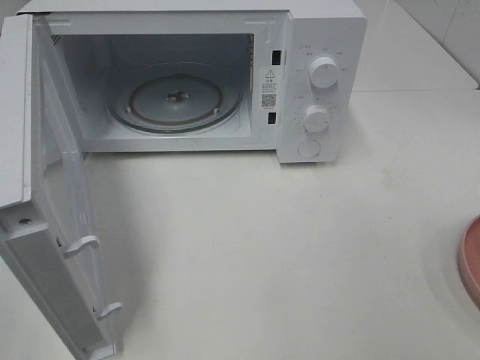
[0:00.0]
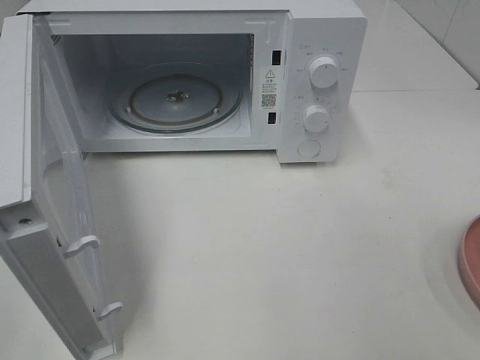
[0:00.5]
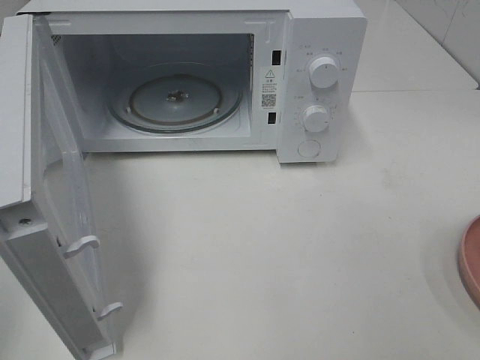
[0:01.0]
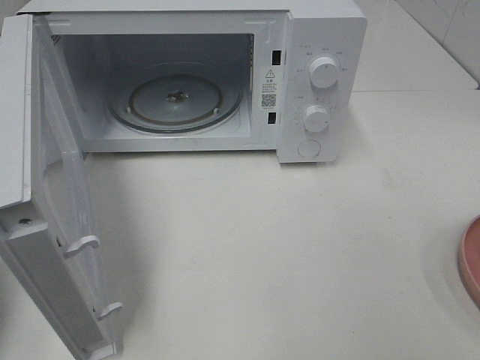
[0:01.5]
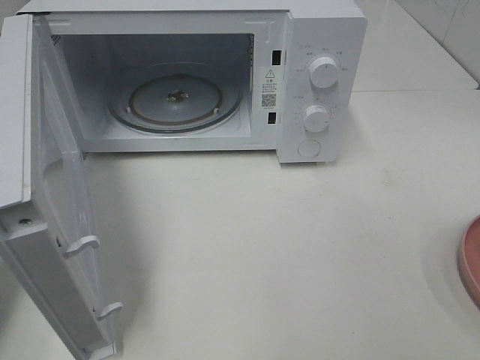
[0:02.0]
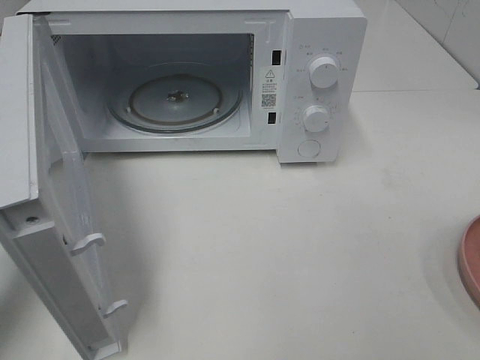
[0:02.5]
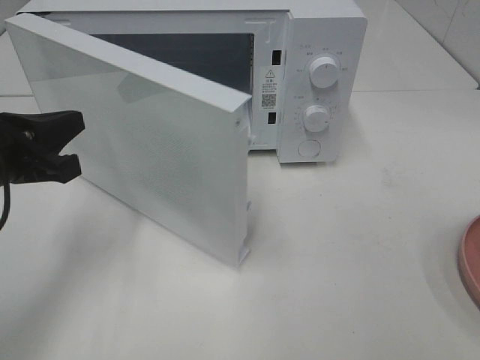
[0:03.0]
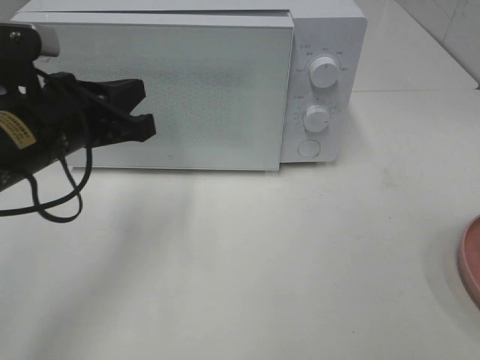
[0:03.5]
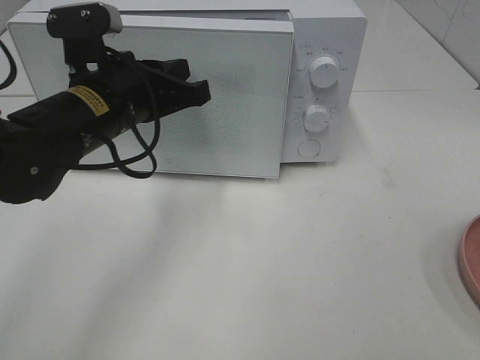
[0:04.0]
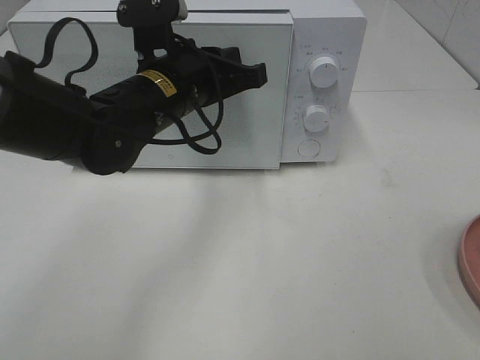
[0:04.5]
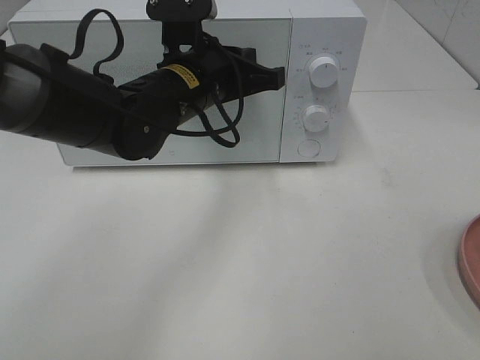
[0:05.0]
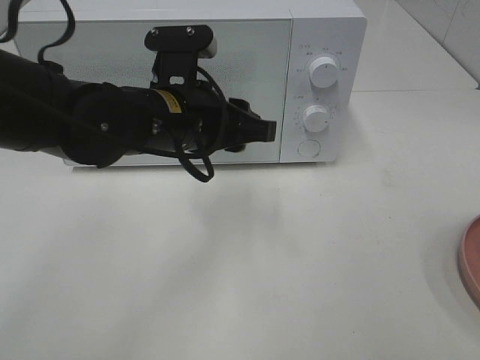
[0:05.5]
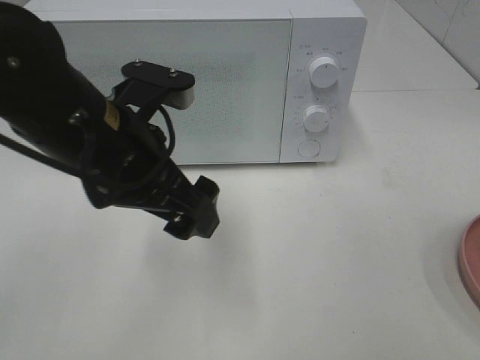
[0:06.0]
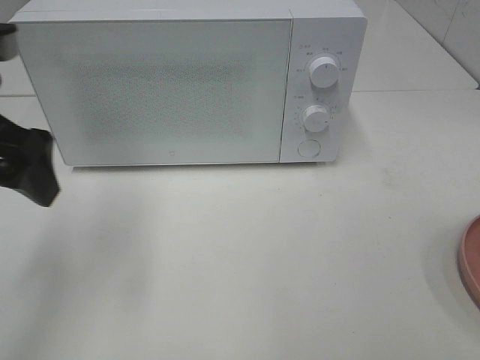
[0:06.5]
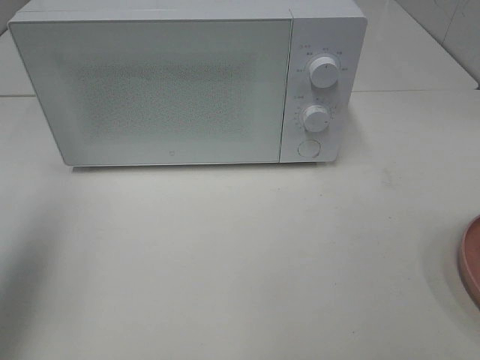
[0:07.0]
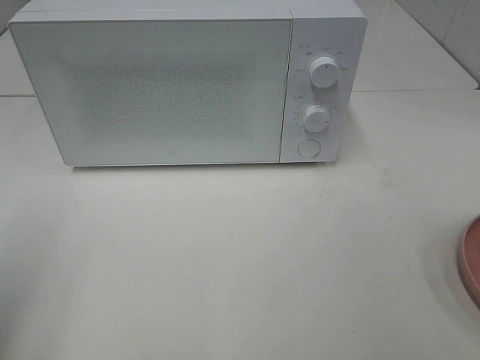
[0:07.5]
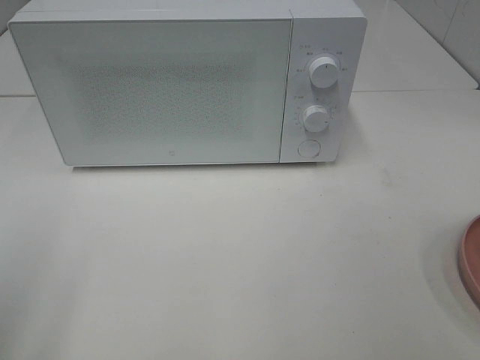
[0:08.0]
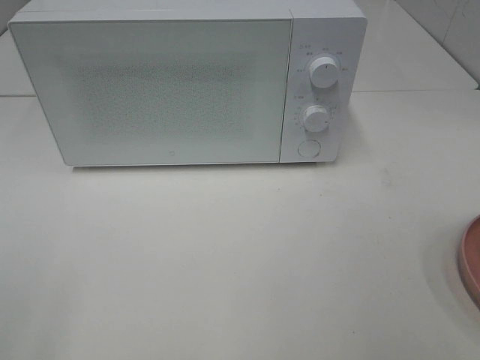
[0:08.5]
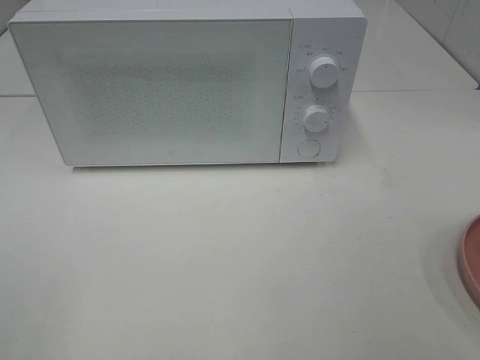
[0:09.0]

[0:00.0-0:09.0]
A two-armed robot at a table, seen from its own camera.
Task of the whole recording: Heat the burger.
Step, 0:00.0 to 0:05.0: Left hand: close the microwave door.
0:00.0 to 0:02.0: The left gripper moves forward, roughly 20 cm, and closes up.
0:02.0 to 0:04.5: The left gripper is displaced to the right and forward by some 30 cm.
0:04.5 to 0:07.0: The left gripper shifts some 30 cm to the left, backward and upward, and opens its fingers.
0:07.0 to 0:09.0: The left gripper moves backward, some 20 cm.

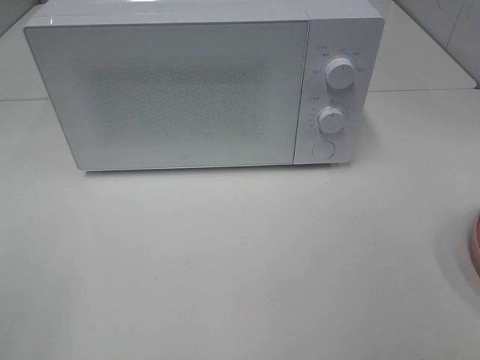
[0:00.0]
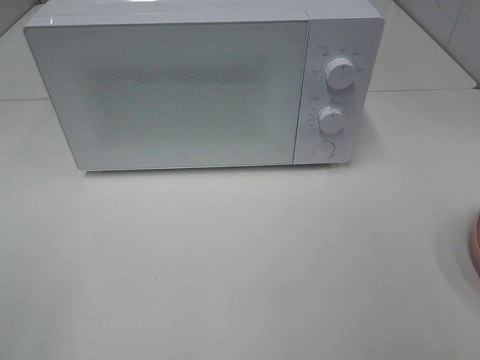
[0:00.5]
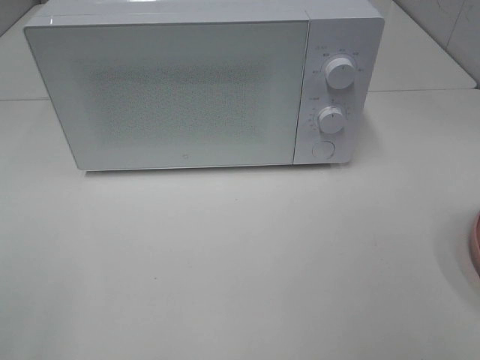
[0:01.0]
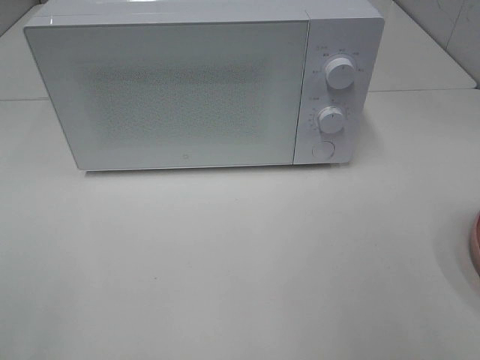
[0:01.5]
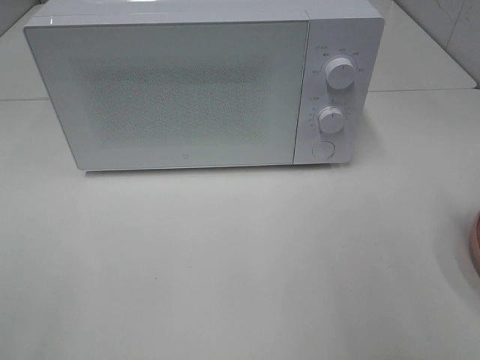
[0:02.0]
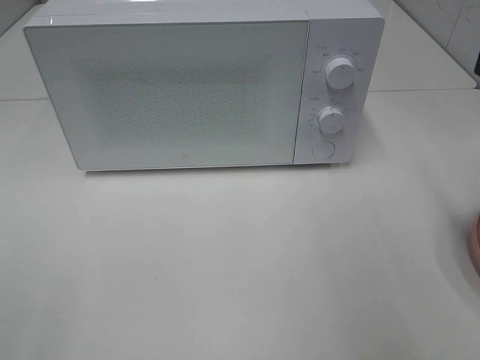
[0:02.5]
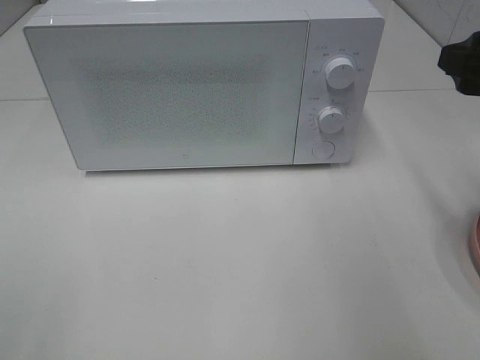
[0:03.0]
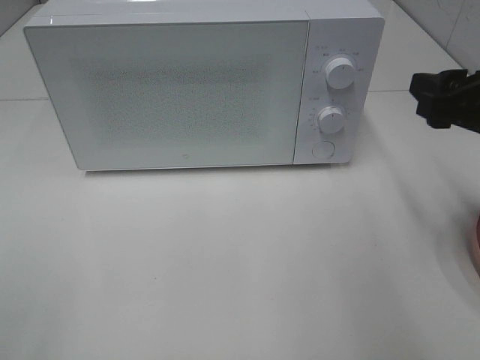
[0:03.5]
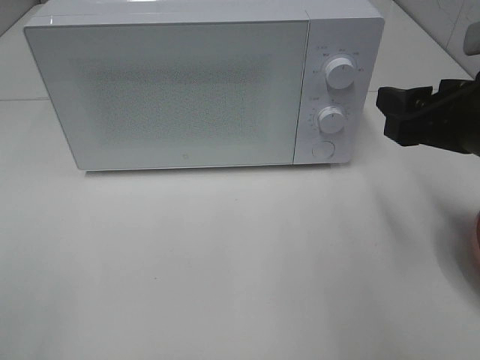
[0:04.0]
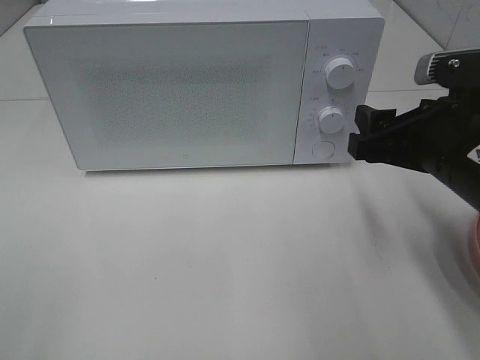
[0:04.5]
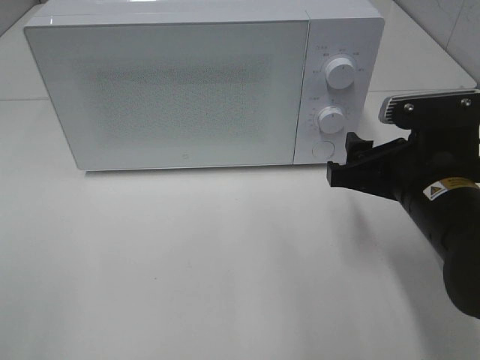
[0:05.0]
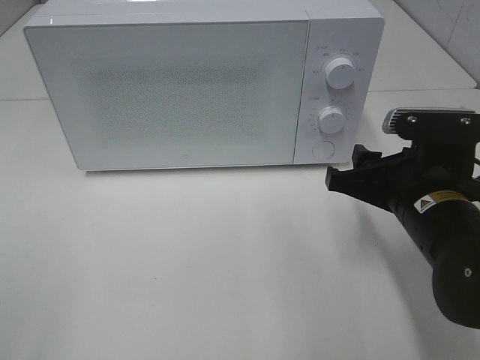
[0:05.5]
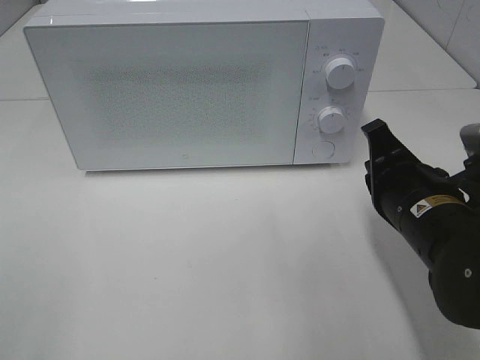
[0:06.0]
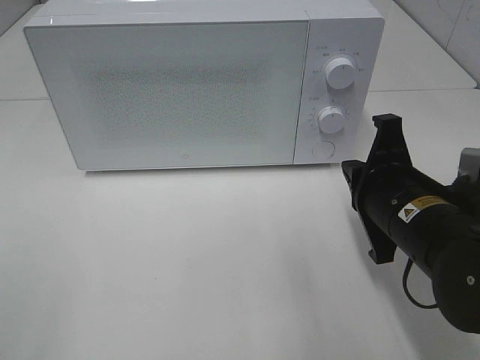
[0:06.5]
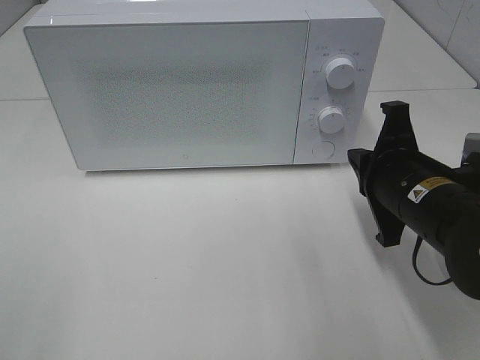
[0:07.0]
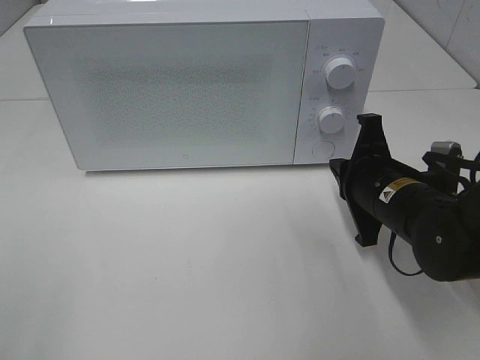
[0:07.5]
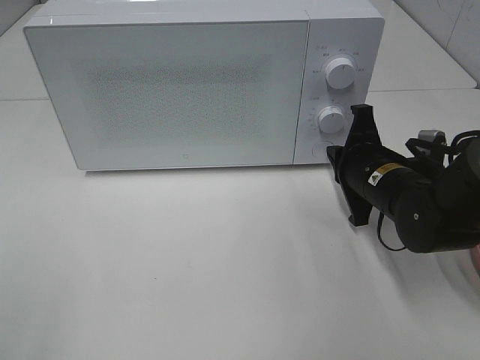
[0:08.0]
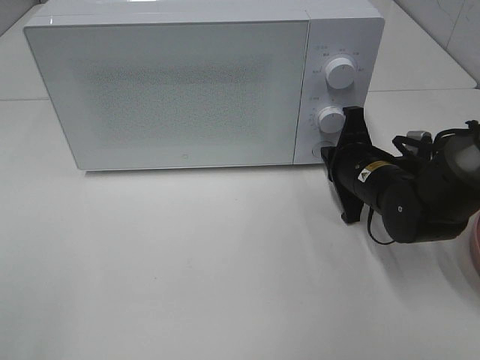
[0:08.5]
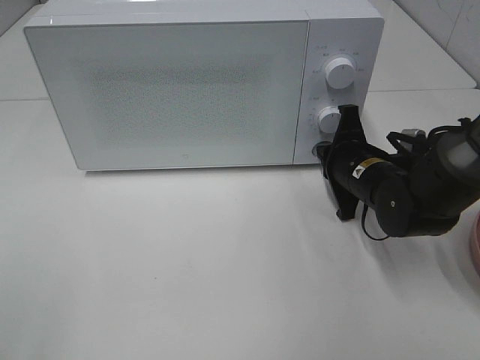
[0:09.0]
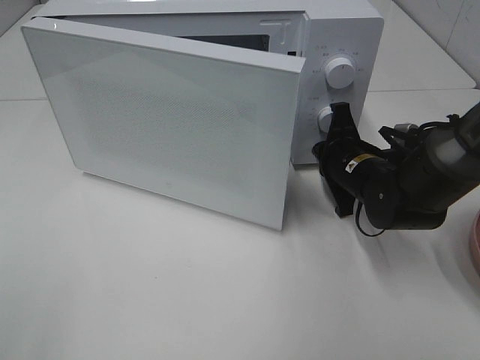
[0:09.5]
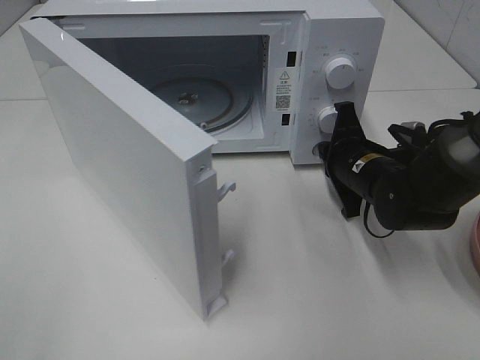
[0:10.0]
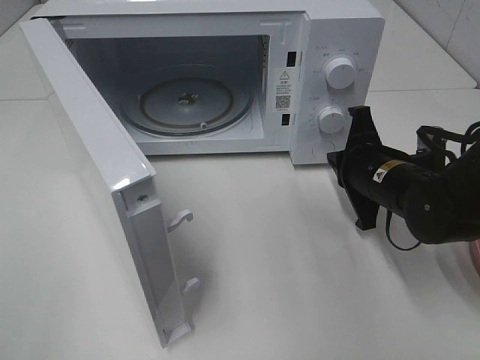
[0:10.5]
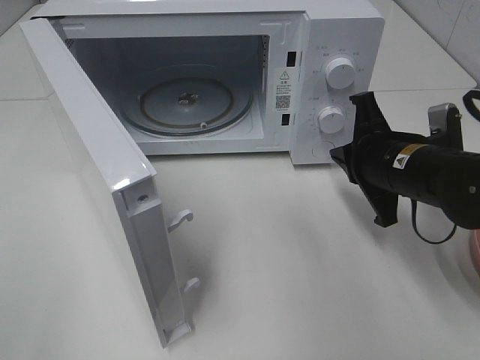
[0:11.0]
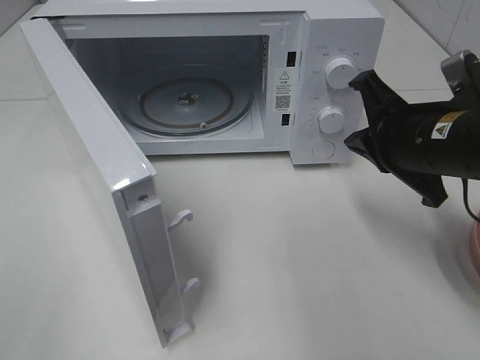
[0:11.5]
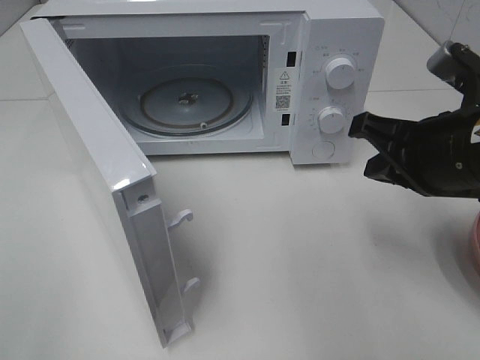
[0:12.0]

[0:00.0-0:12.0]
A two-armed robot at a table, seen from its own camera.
Task of the whole recording: Heat the burger.
Step, 0:00.0 to 0:10.0: Right hand: press the switch.
0:02.0 to 0:04.0: The right gripper shifts about 15 cm downward, forward and to the left.
0:04.0 to 0:06.0: The right gripper moves downward and to the left, roughly 10 cm, and closes its fingers.
0:06.0 to 0:08.0: The right gripper goes approximately 10 cm forward.
0:10.0 to 0:12.0: The right gripper shifts about 15 cm upward and backward.

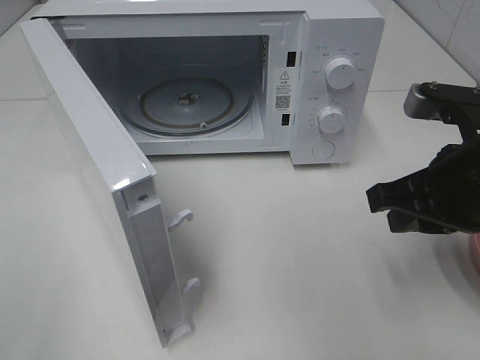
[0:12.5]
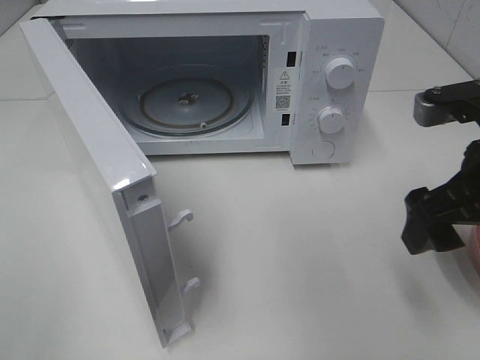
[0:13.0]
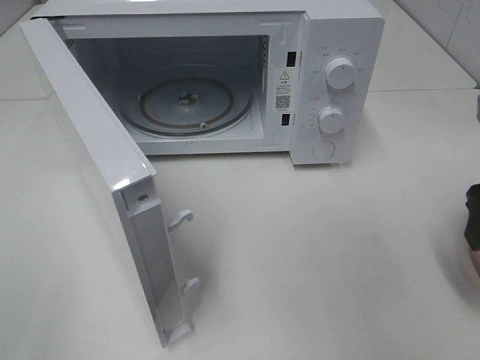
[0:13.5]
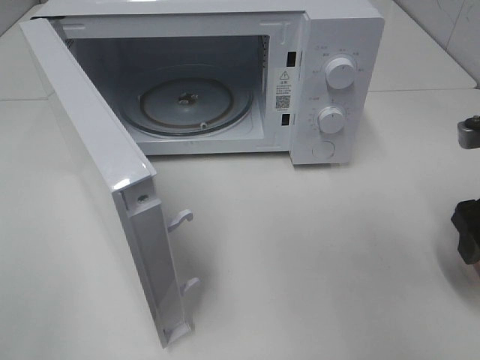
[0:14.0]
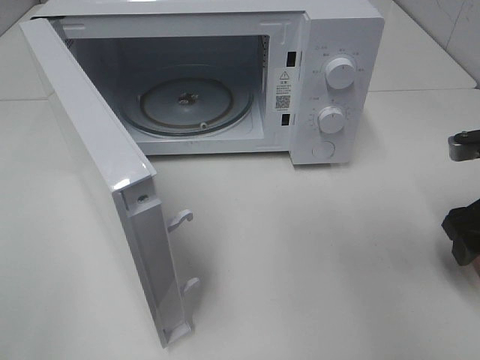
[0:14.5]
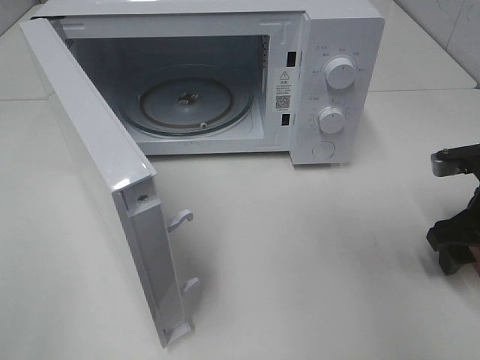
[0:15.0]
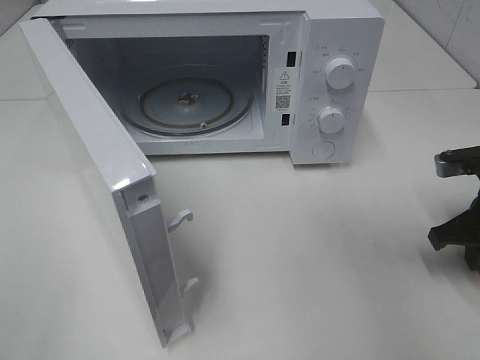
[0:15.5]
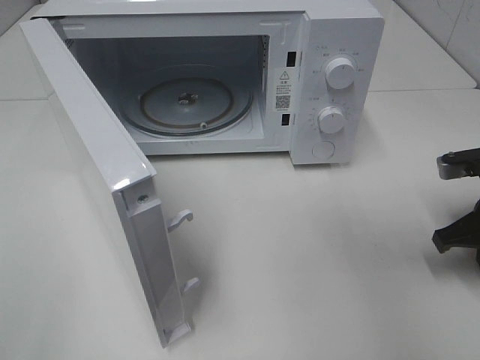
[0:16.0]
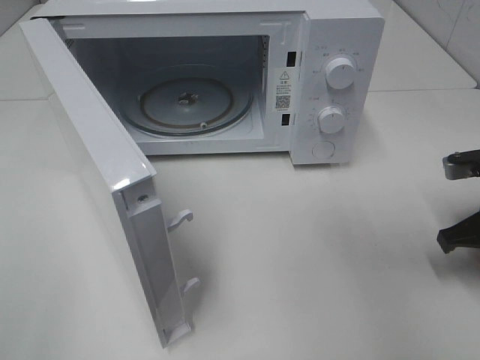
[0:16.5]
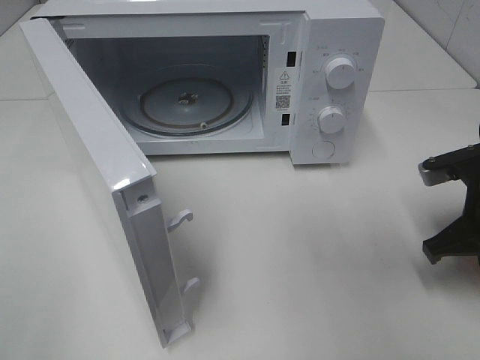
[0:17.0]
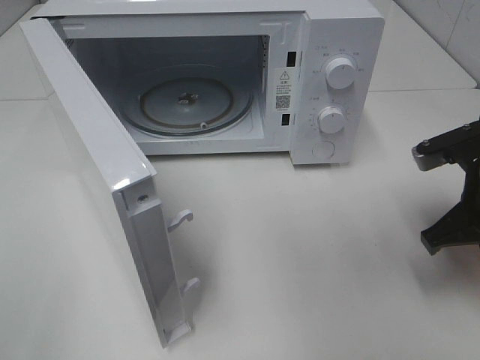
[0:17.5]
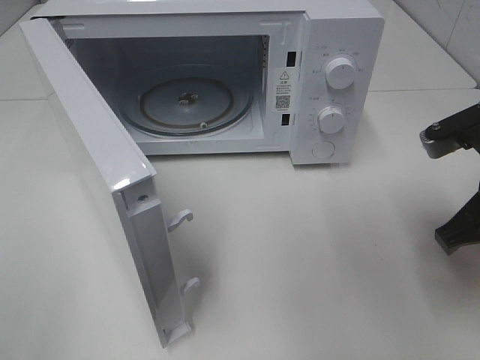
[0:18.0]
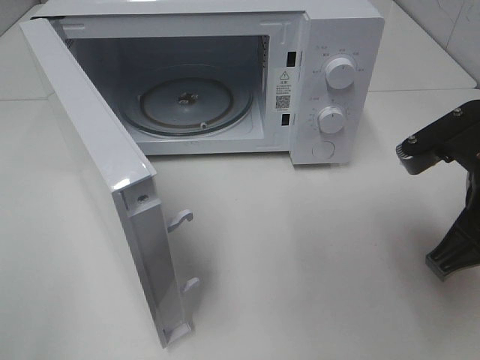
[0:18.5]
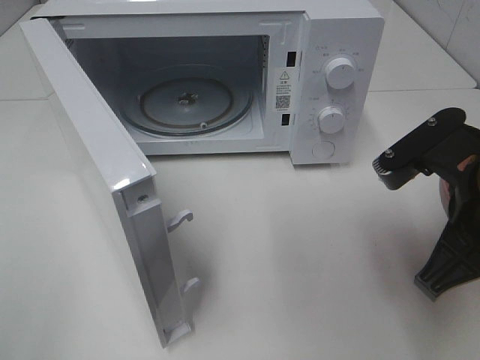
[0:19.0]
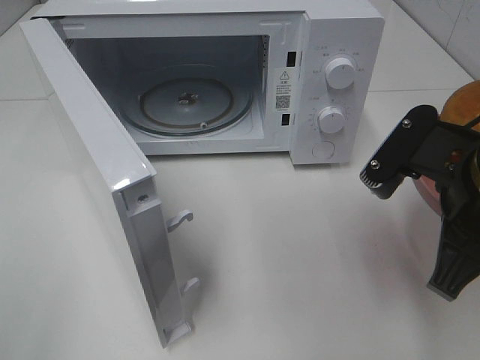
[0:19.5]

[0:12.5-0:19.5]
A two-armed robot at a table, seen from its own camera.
Task of the whole recording: Heat the burger.
Step, 0:12.5 to 0:15.5: Right hand: grab the plate with the hamburger.
0:12.5 to 0:14.5: The right gripper heads to the right and downward, covering roughly 10 cm, and opens.
0:14.5 to 0:16.0: The right gripper closes its fingers.
0:16.0 to 0:17.5: The right gripper travels to the left by approximately 5 cm.
0:17.5 to 0:19.5: The right gripper goes roughly 10 cm to the left, backward and upward.
